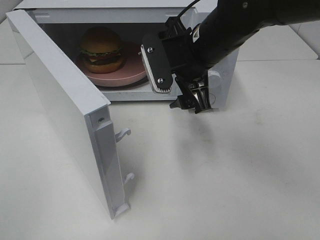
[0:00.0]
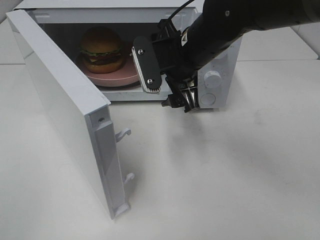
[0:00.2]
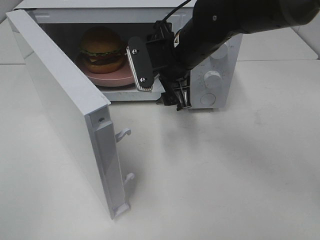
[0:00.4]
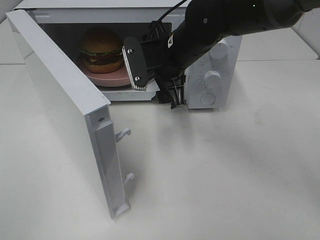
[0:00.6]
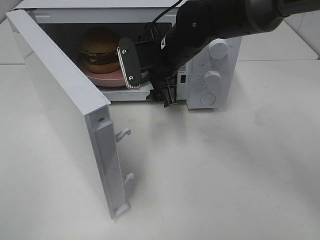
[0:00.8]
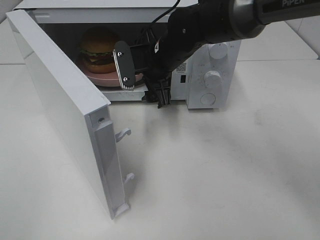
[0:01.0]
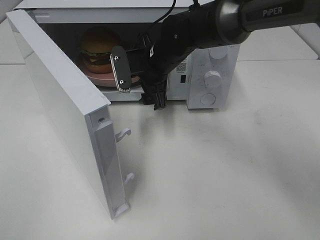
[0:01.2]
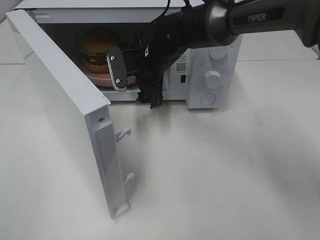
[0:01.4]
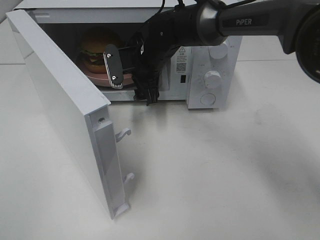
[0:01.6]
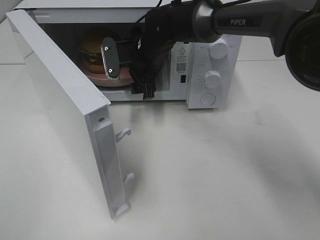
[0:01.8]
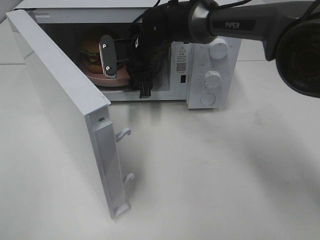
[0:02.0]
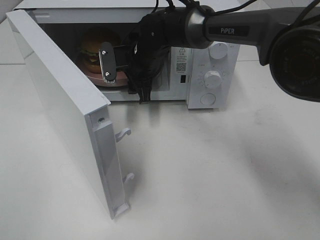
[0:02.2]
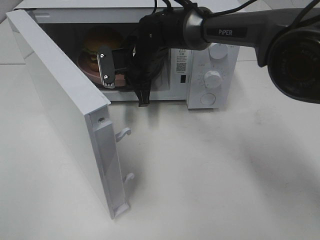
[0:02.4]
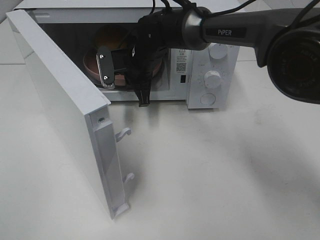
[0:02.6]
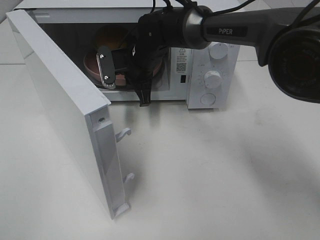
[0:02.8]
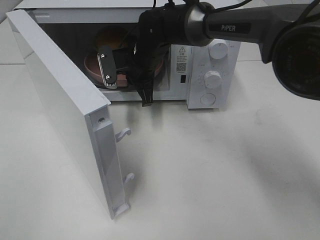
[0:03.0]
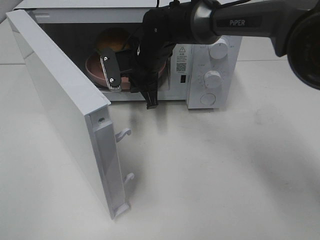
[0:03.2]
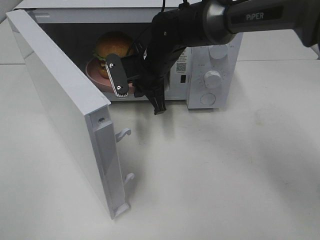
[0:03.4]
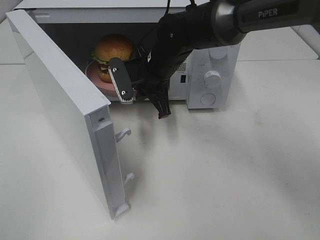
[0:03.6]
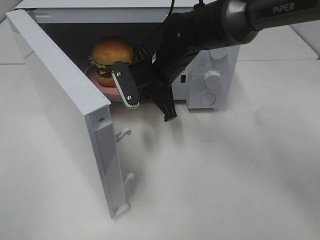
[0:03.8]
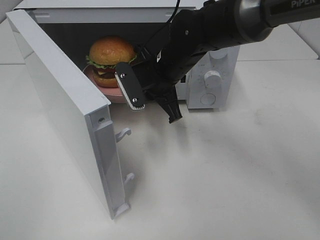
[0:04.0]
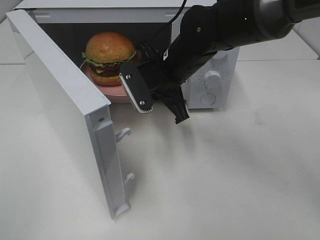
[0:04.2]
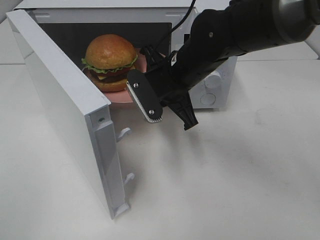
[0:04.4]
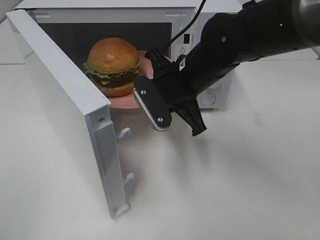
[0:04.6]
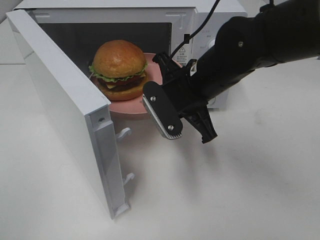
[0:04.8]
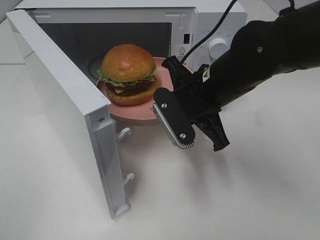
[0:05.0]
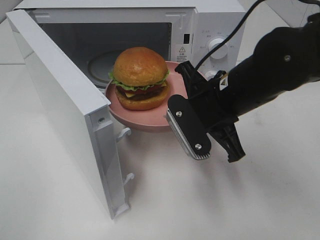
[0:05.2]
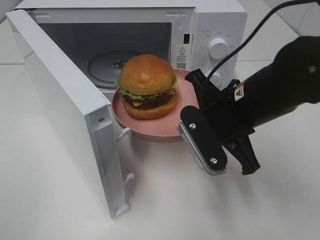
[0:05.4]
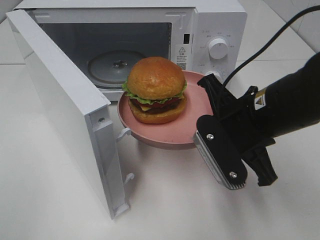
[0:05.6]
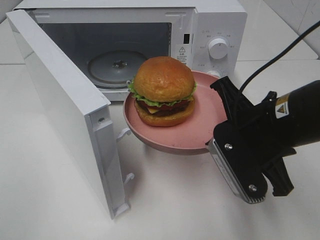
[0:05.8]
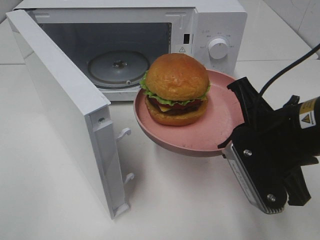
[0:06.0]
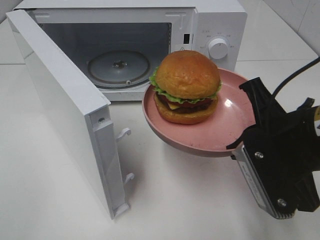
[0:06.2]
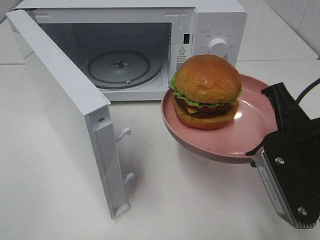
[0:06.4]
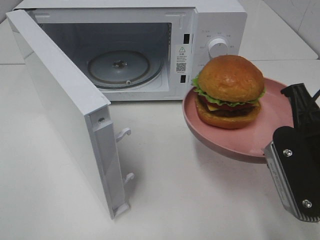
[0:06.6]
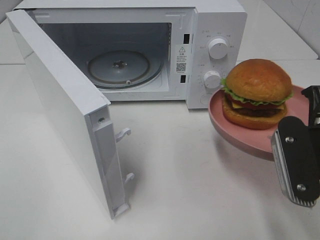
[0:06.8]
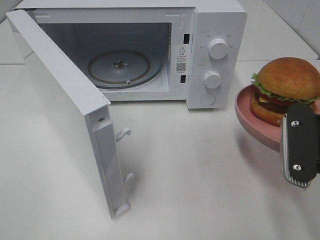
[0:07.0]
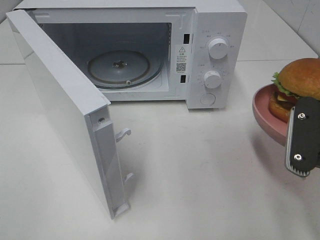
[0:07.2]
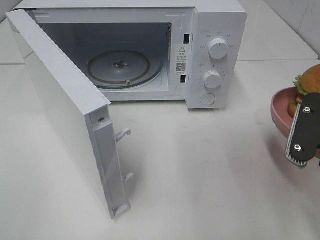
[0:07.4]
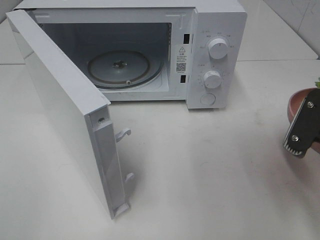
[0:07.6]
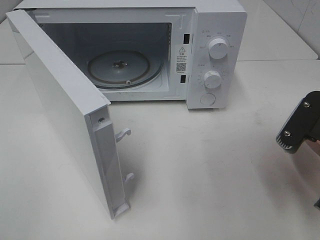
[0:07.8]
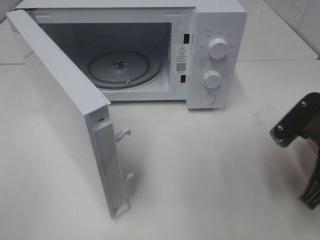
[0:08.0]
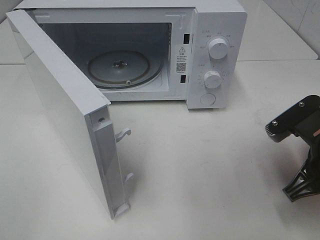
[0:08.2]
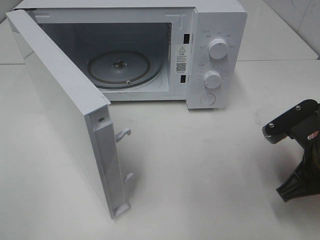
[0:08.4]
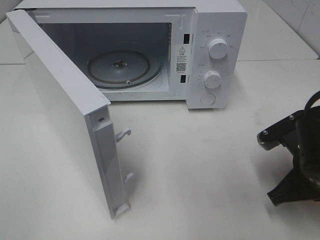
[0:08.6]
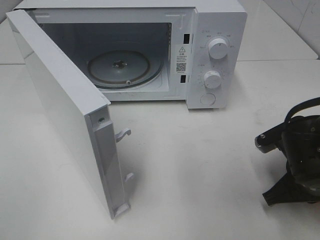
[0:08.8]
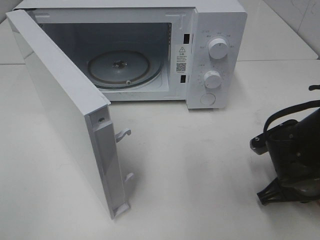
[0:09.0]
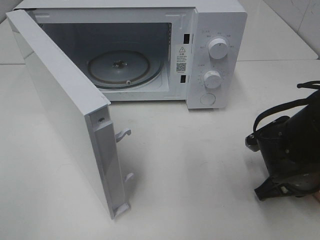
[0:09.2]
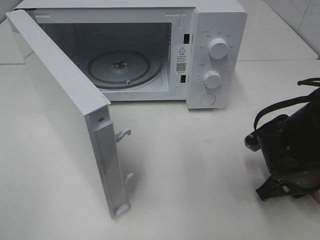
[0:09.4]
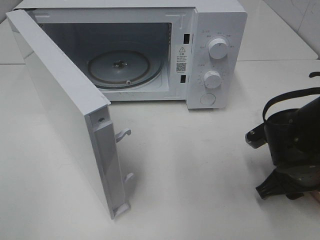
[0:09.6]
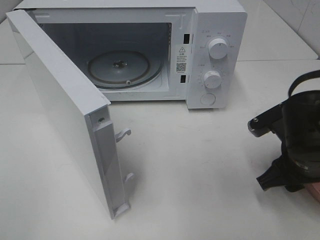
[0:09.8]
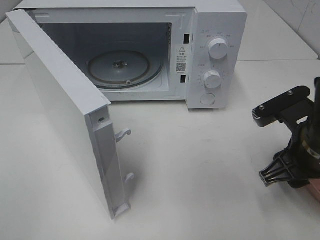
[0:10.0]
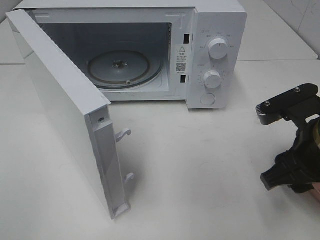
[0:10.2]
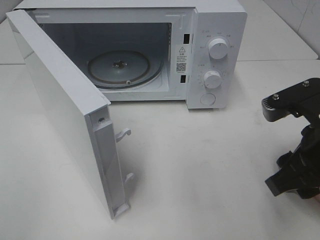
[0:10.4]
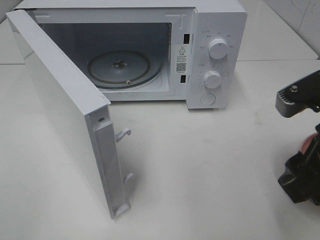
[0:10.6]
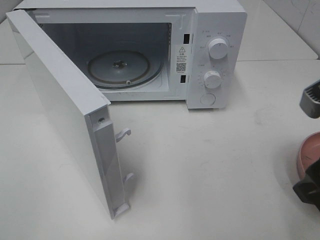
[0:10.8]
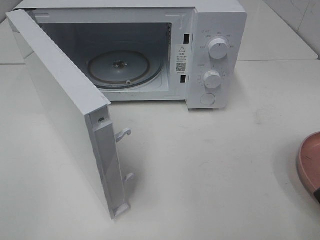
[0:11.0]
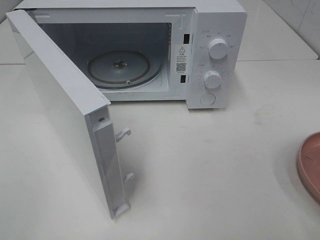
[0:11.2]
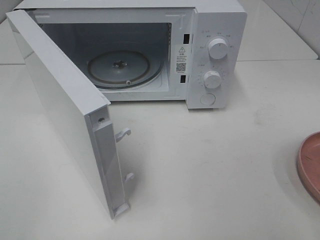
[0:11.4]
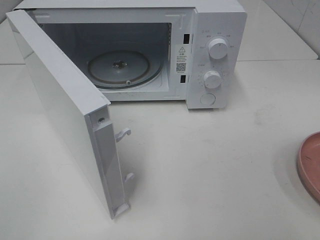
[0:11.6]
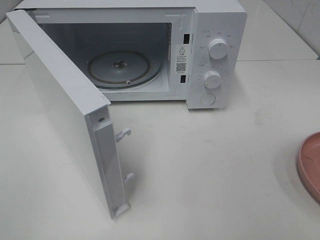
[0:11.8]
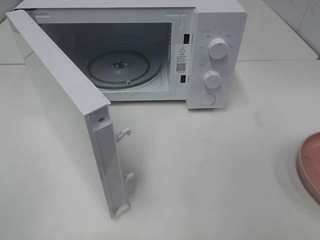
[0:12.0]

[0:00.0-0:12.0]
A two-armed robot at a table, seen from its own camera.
Task of the whole recording: Heat the burger.
Step, 0:00.0 to 0:02.6: Right hand: grab the plate with the hamburger.
Step, 0:02.8 to 0:10.0: Right hand: place the plate on the table.
0:00.0 to 0:01.6: The right gripper heads forward, to the left and downward, covering some 15 cm.
0:01.6 to 0:03.0: The right gripper closes up.
0:03.0 to 0:04.4: The right gripper goes some 15 cm backward and to the right.
0:04.4 to 0:06.0: The right gripper heads backward and to the right, covering some 20 cm.
0:06.0 to 0:07.6: The right gripper travels to the right by some 5 cm.
0:07.6 to 0:09.0: The right gripper heads downward, covering roughly 10 cm.
0:09.0 to 0:10.4: The right gripper shifts approximately 10 cm upward, and opens.
0:10.4 to 0:12.0: The right gripper goes roughly 20 cm backward, to the right and upward.

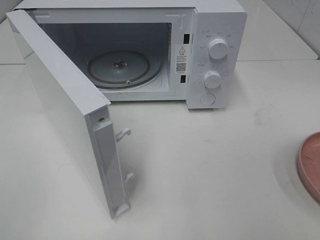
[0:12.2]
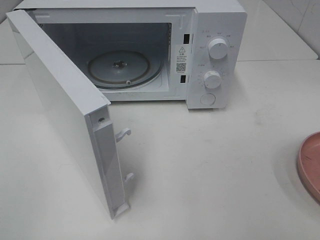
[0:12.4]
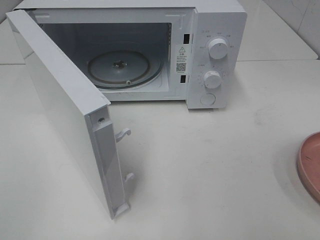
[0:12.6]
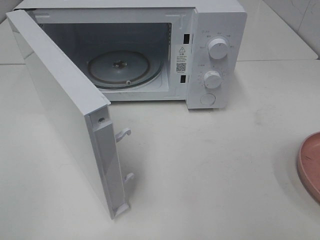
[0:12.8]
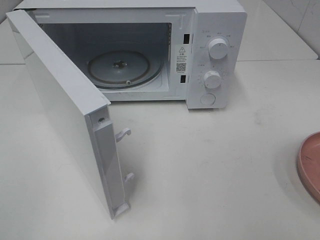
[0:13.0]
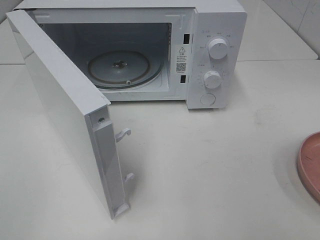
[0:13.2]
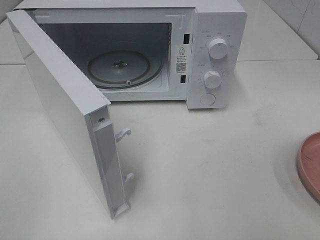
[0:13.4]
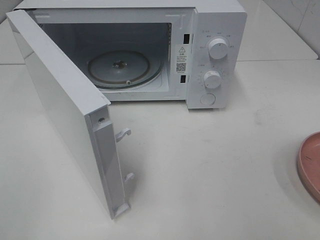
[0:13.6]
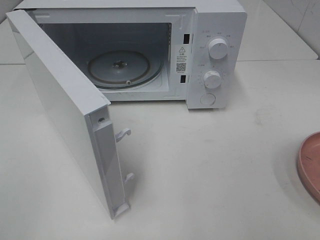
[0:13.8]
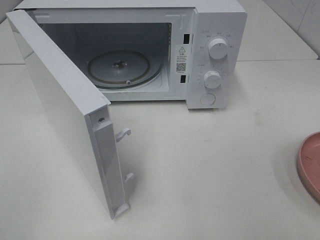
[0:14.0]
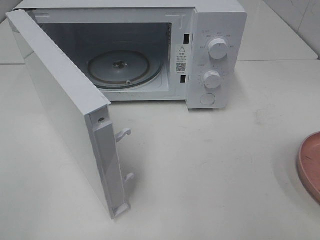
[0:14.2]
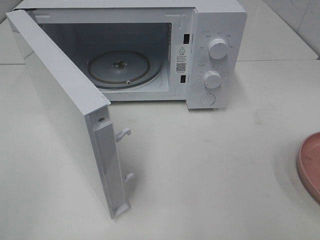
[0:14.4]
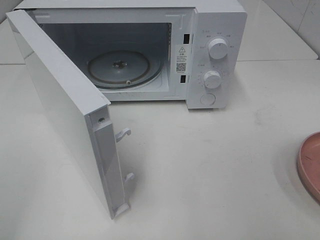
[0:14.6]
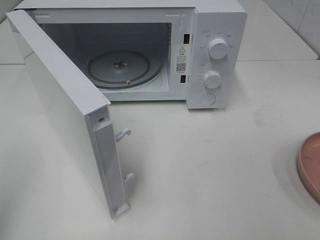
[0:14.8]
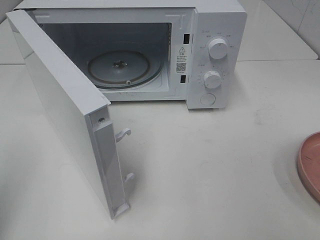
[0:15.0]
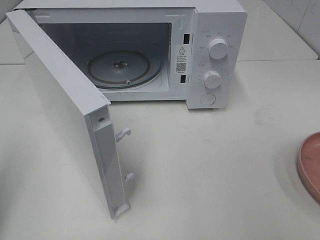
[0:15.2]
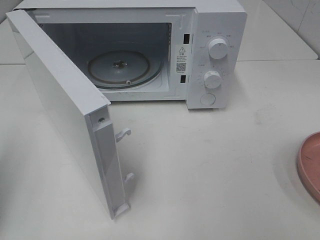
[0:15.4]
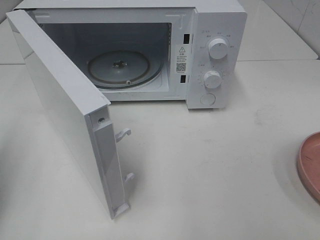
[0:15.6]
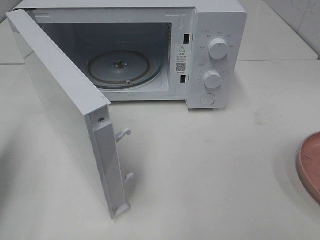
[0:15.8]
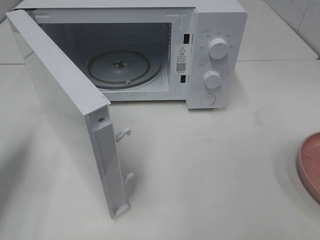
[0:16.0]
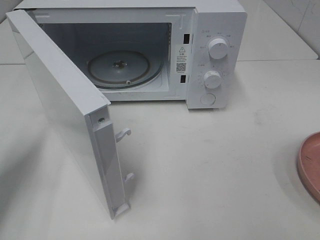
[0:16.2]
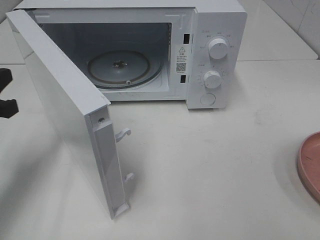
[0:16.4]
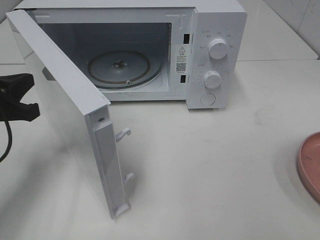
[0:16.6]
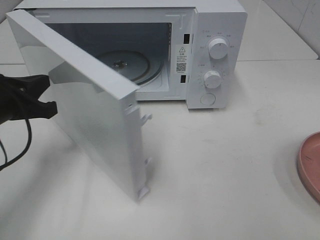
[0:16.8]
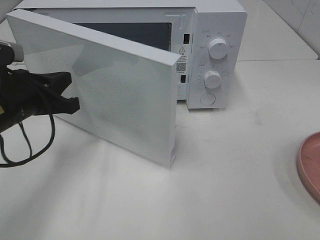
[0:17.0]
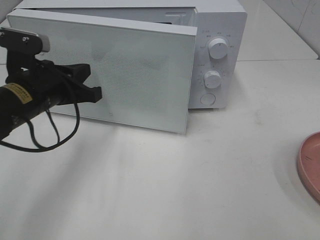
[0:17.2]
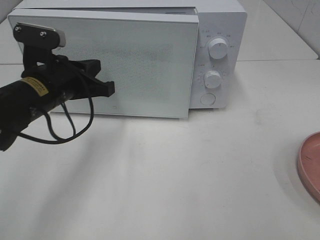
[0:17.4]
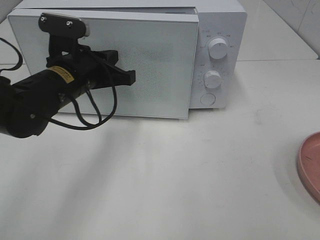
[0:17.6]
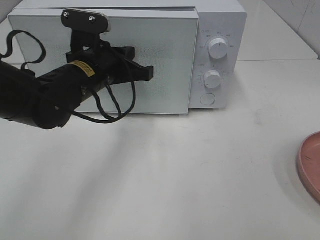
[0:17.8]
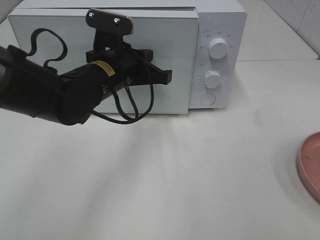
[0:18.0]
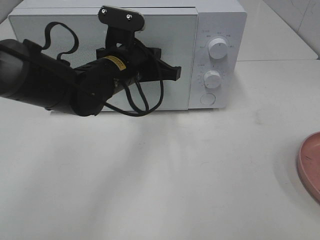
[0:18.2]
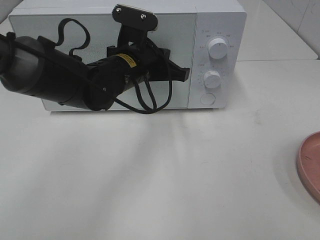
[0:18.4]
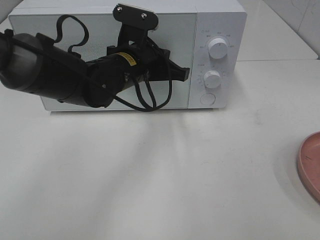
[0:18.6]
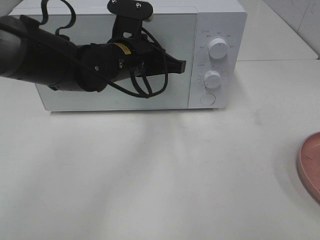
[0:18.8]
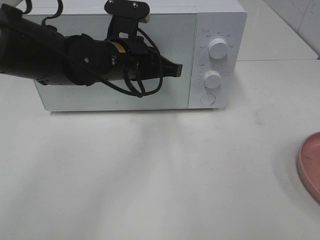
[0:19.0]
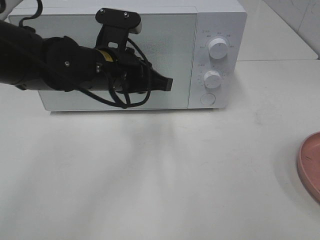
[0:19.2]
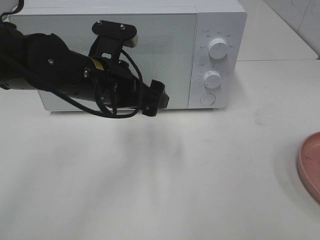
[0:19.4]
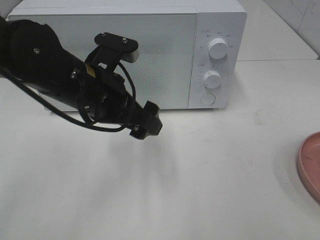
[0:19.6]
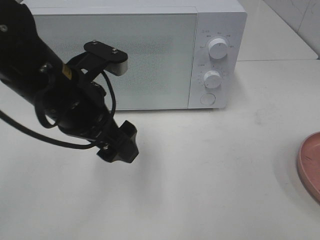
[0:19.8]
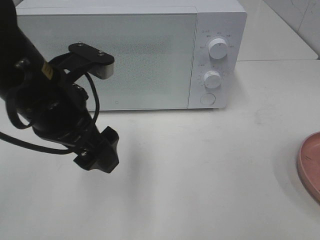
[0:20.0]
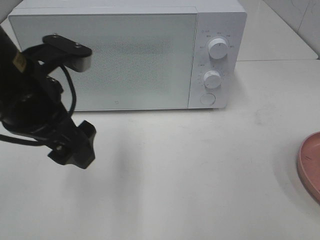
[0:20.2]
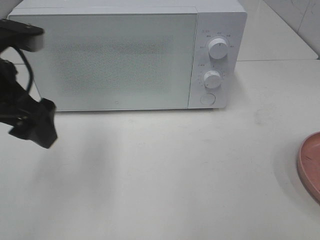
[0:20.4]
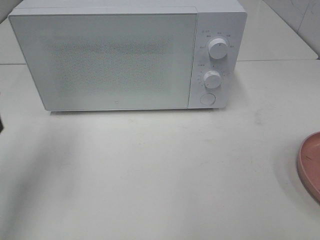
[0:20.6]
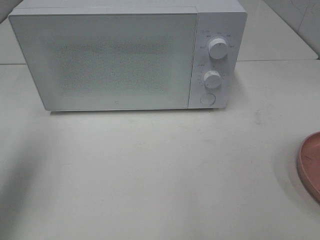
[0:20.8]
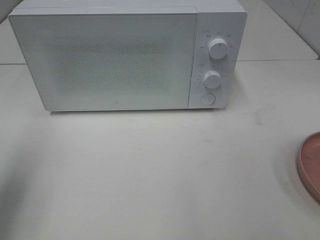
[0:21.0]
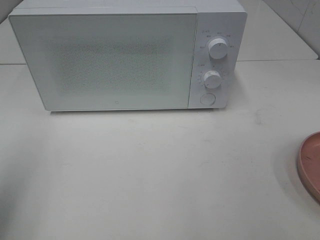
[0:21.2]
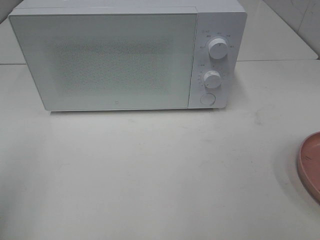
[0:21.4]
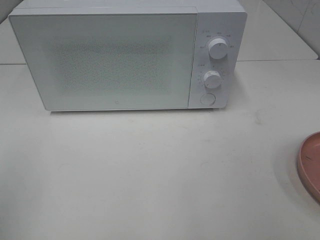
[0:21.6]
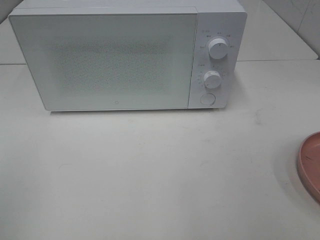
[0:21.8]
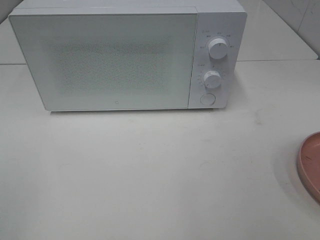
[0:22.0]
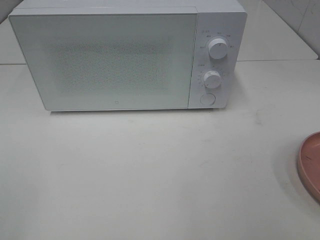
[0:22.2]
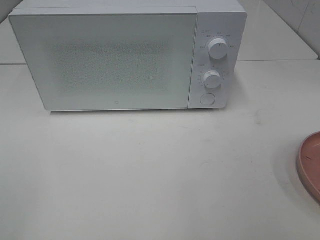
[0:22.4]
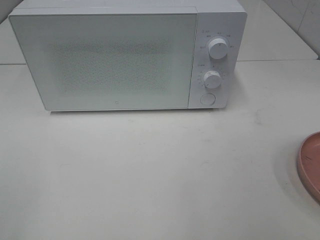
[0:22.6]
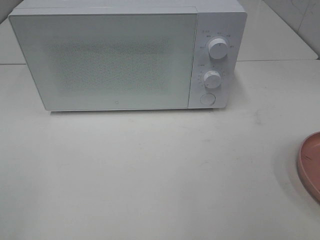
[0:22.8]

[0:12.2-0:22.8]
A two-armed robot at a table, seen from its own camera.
Task of the whole recording: Heat the burger.
Step, 0:12.2 to 0:19.2: Left hand: close the microwave door.
0:12.2 to 0:13.8: Neither gripper changes place.
0:15.2 to 0:16.8: The left gripper is displaced forward, downward and to the right by approximately 20 cm.
0:16.8 to 0:18.2: The left gripper travels to the right and forward by roughly 20 cm.
0:18.2 to 0:19.8: The left gripper heads backward and to the left, covering some 10 cm, and opens its fingers.
0:19.8 to 0:21.2: The left gripper goes about 25 cm to the left and backward.
0:21.2 to 0:22.8: The left gripper shifts approximately 15 cm backward.
